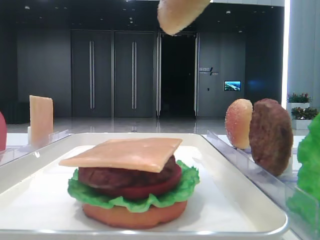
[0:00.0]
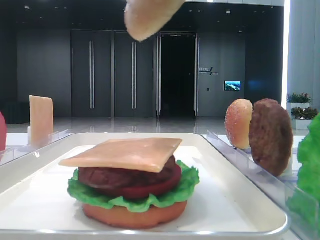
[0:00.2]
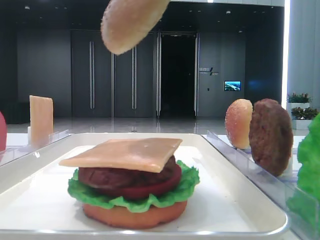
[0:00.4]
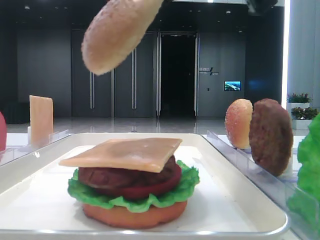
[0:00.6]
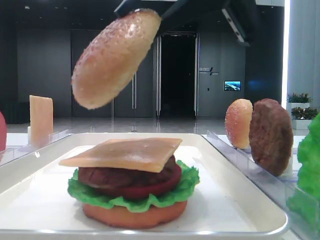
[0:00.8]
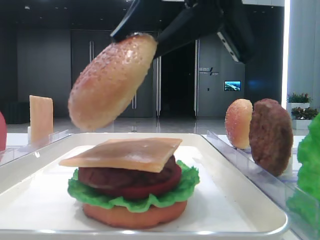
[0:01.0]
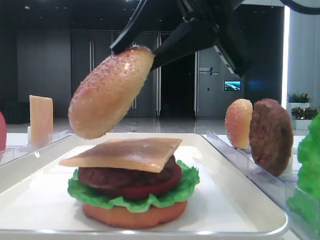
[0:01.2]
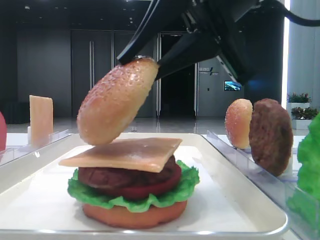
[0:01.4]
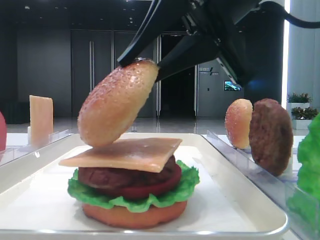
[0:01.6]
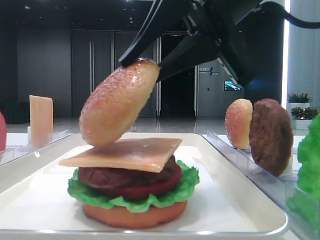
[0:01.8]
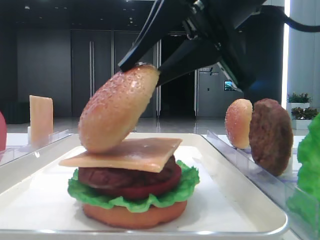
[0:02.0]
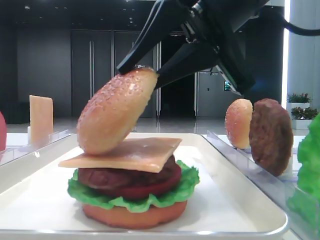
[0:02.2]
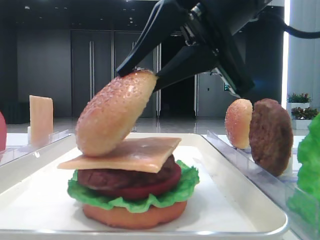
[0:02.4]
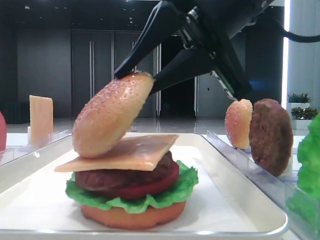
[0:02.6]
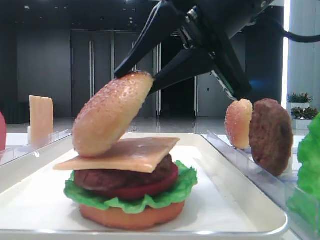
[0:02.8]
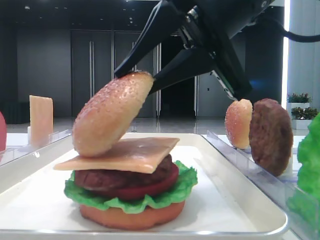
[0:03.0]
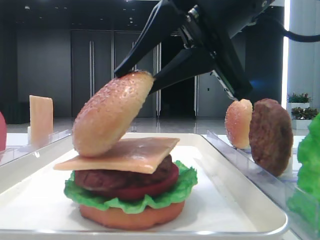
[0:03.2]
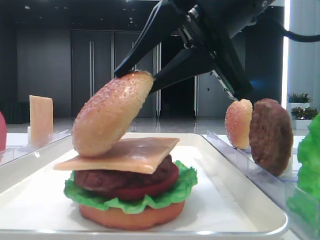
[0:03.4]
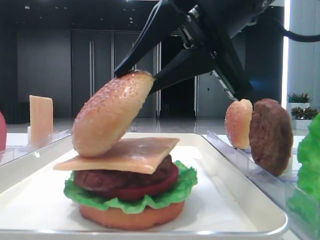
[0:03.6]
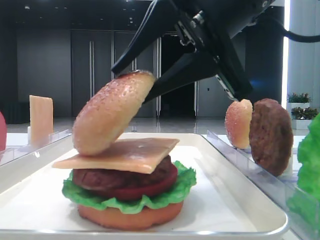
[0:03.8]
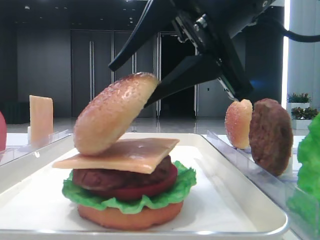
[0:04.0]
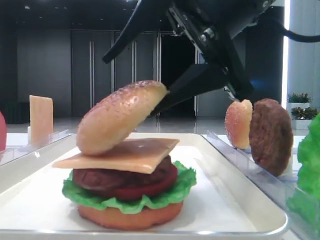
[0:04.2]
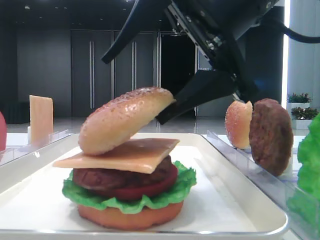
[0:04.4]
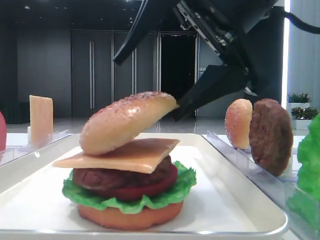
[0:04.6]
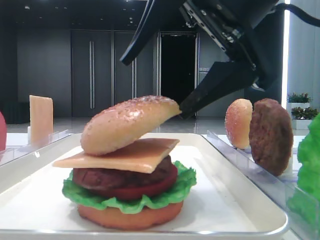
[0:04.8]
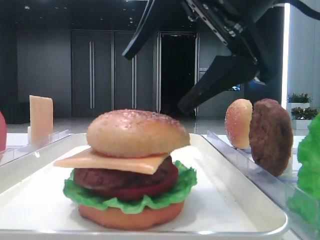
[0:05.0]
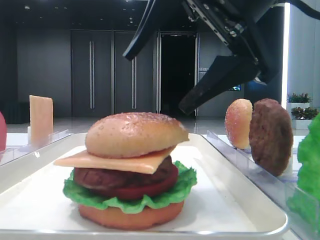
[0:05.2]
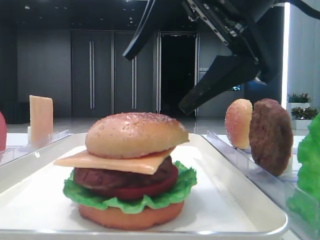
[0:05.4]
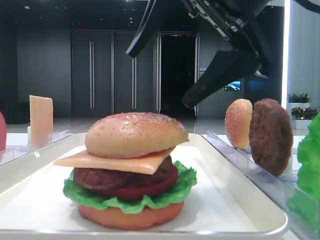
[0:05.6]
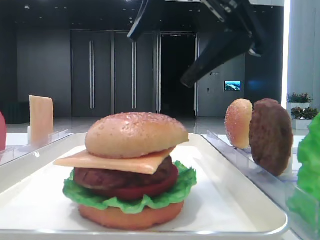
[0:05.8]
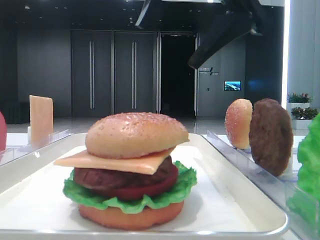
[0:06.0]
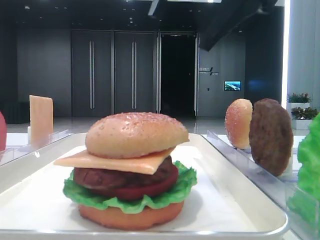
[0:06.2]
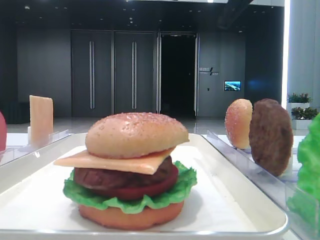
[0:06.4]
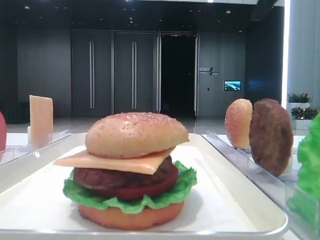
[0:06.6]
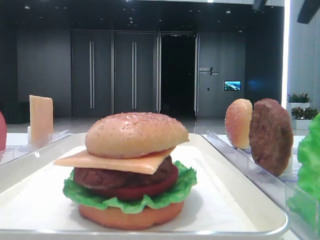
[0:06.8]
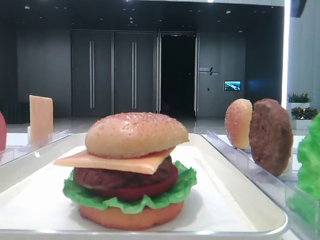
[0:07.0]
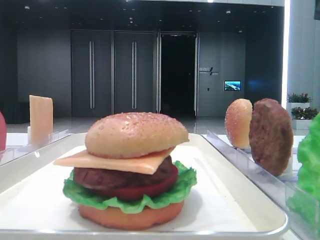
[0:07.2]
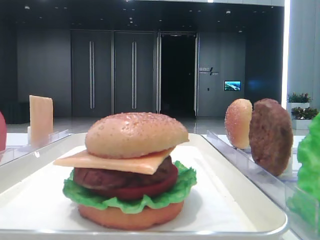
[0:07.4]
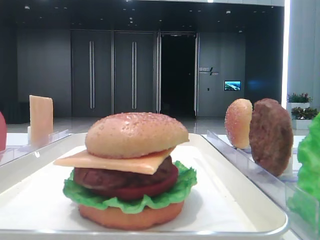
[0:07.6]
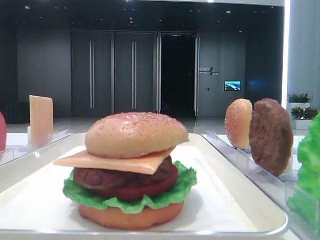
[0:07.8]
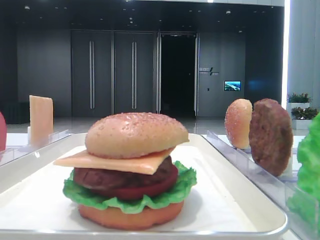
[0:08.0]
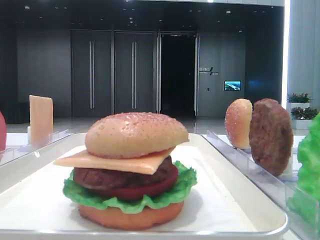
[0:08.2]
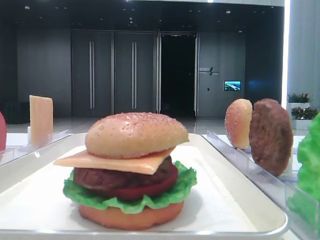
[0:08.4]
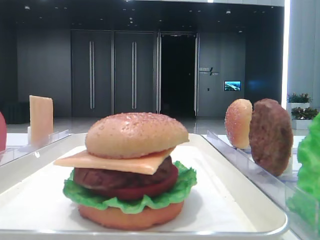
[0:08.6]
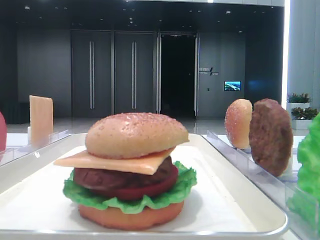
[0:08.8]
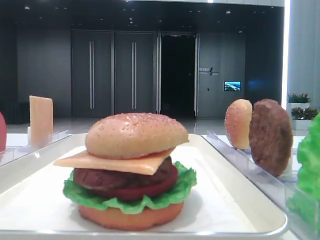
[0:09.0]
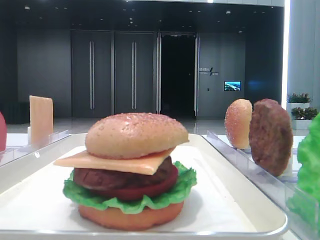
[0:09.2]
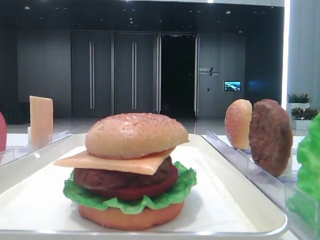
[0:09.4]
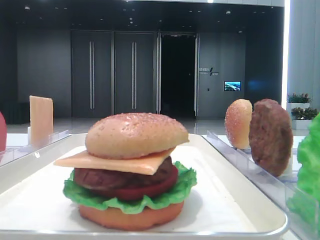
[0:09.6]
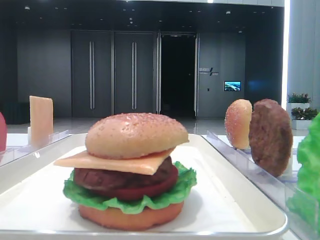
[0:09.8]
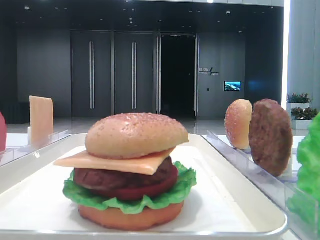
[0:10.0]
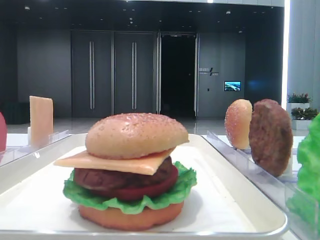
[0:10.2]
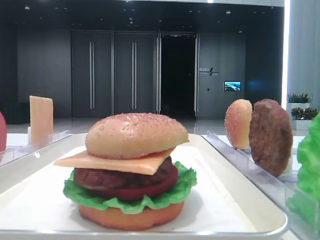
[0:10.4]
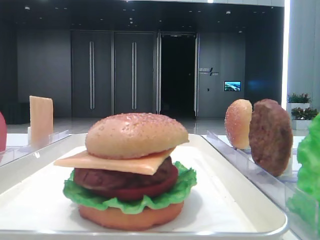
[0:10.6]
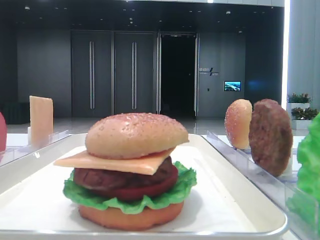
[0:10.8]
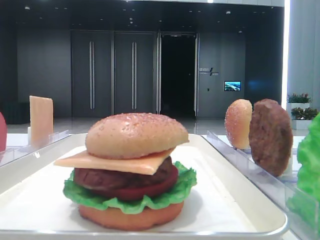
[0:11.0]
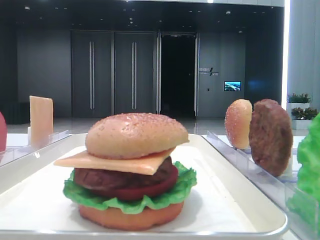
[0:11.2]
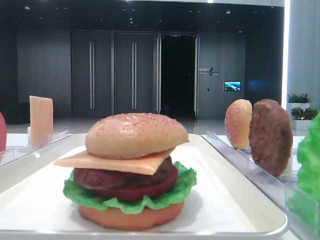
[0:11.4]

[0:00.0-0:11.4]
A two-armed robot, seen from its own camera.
Step, 0:00.0 to 0:04.8: Place the top bread slice on the cheese with the right hand.
0:00.0 to 0:01.4: The right gripper shifts approximately 10 cm downward and to the left.
0:01.4 to 0:02.8: The grippers stay close to where they were, moving slightly.
0:02.8 to 0:04.2: The right gripper opens up.
0:04.2 to 0:05.6: There are only small adjustments of the grippers.
0:05.6 to 0:07.2: The right gripper heads to the right, upward and forward, covering about 25 cm.

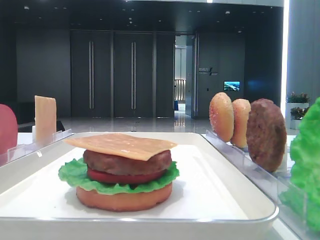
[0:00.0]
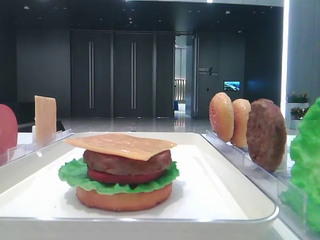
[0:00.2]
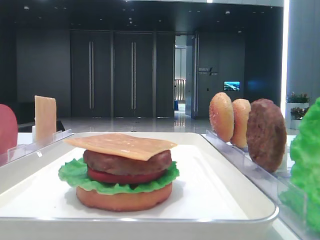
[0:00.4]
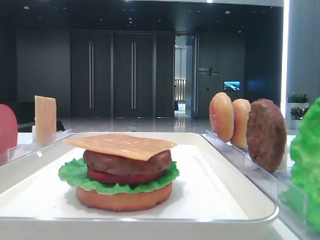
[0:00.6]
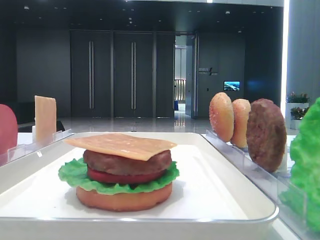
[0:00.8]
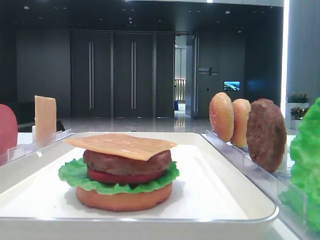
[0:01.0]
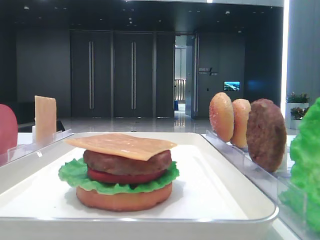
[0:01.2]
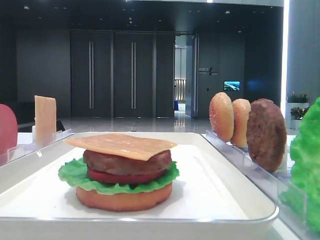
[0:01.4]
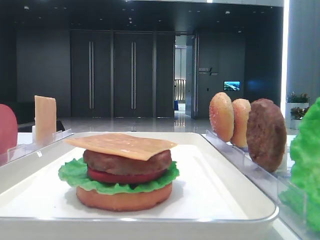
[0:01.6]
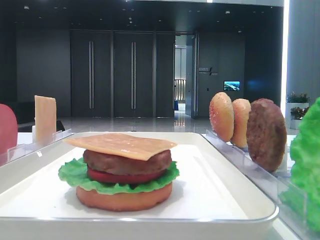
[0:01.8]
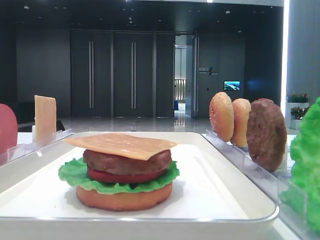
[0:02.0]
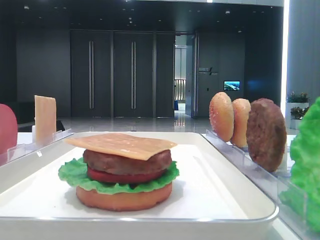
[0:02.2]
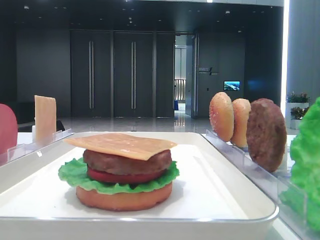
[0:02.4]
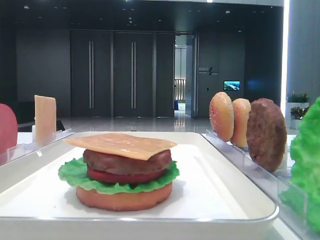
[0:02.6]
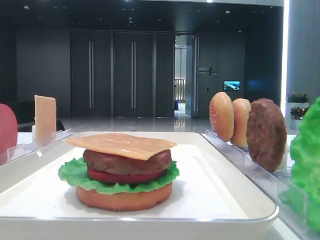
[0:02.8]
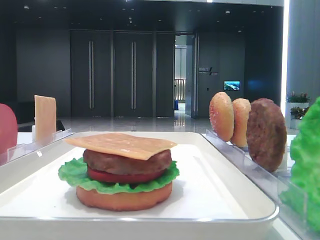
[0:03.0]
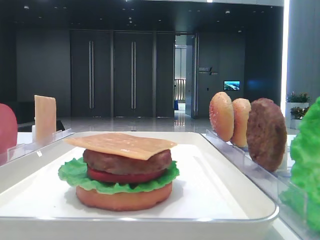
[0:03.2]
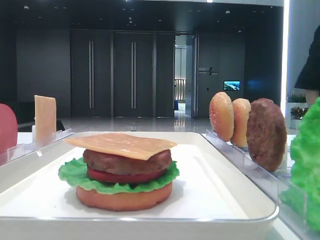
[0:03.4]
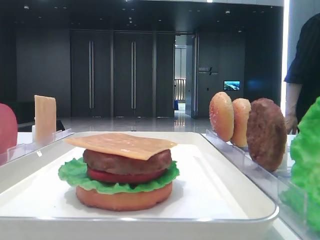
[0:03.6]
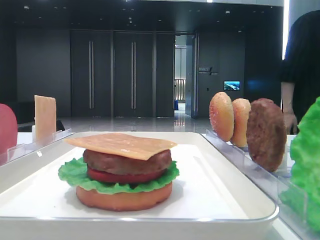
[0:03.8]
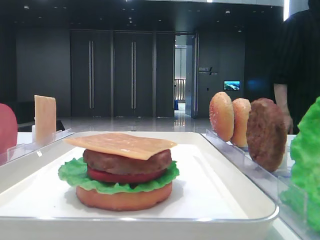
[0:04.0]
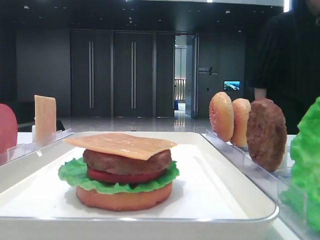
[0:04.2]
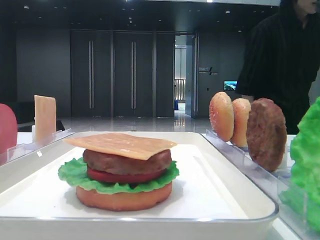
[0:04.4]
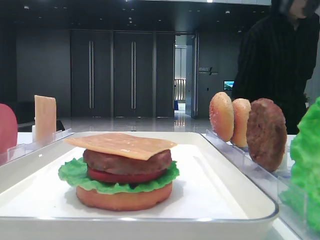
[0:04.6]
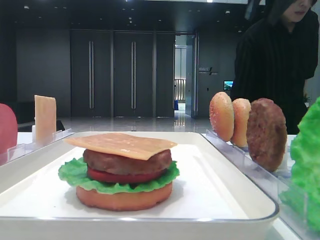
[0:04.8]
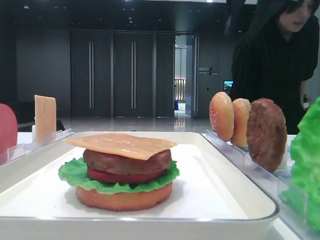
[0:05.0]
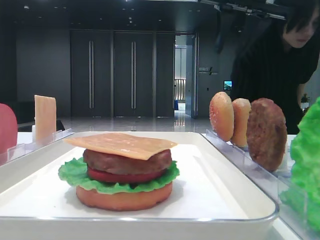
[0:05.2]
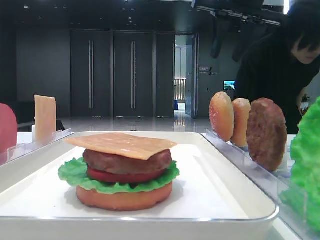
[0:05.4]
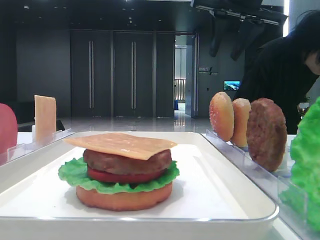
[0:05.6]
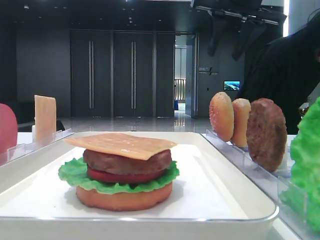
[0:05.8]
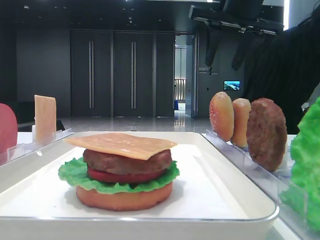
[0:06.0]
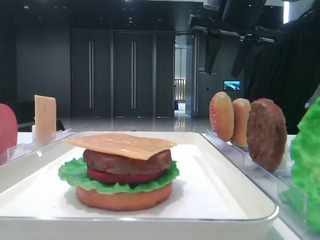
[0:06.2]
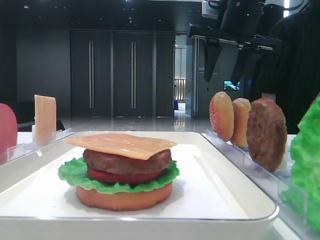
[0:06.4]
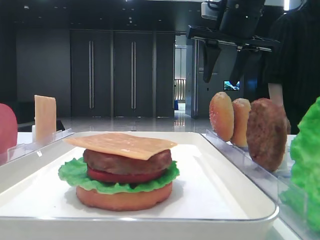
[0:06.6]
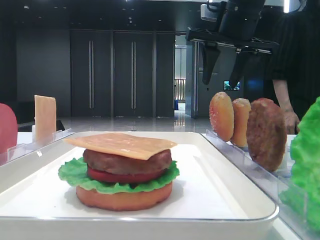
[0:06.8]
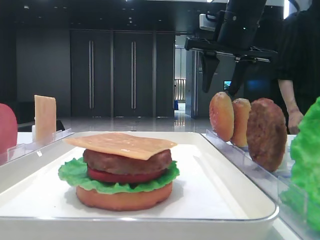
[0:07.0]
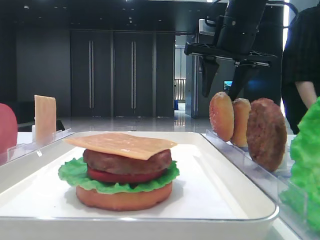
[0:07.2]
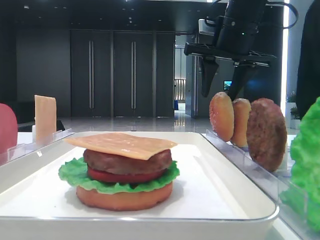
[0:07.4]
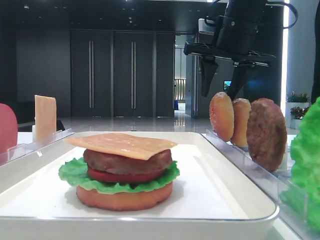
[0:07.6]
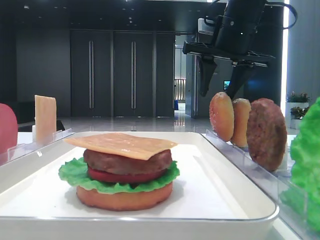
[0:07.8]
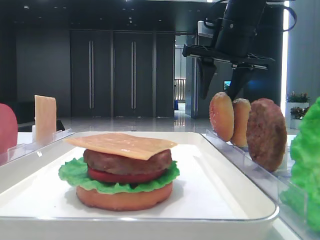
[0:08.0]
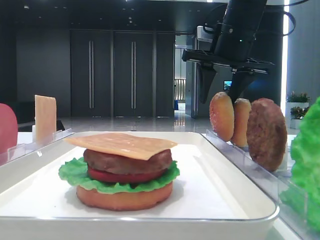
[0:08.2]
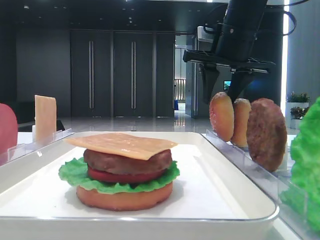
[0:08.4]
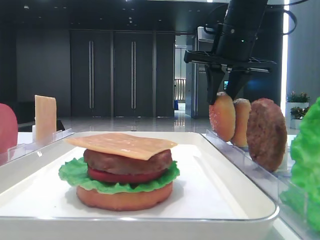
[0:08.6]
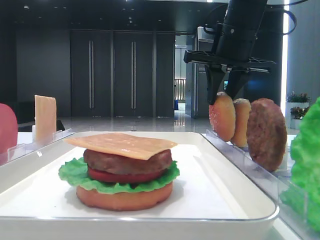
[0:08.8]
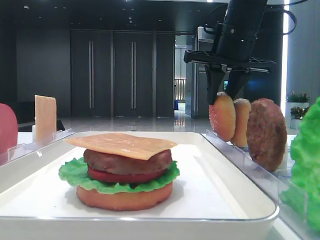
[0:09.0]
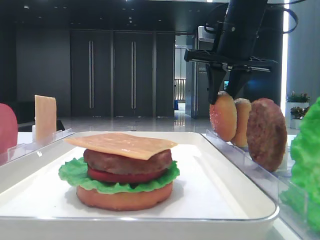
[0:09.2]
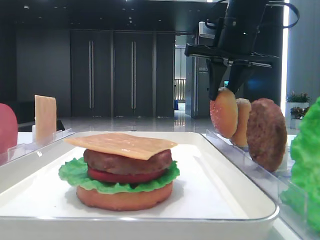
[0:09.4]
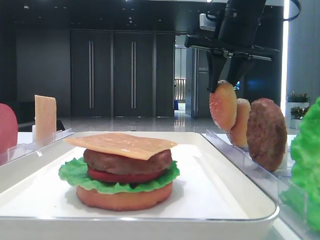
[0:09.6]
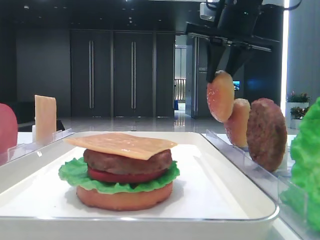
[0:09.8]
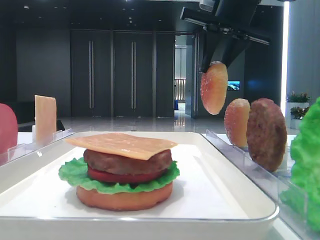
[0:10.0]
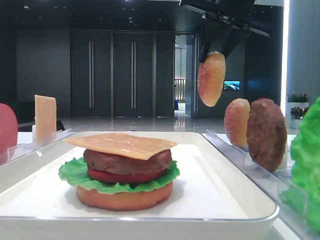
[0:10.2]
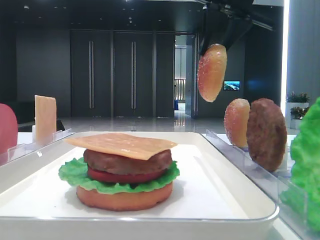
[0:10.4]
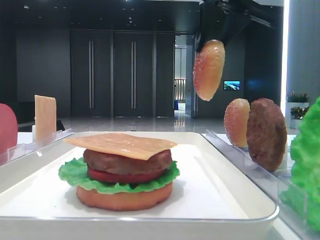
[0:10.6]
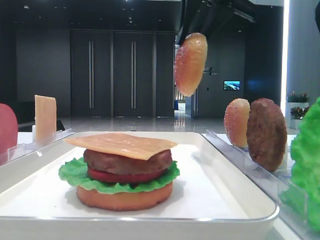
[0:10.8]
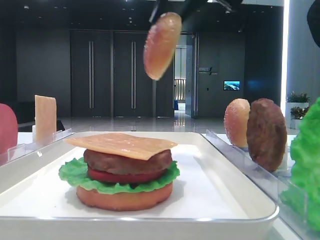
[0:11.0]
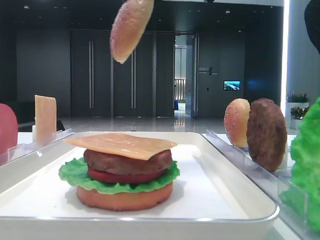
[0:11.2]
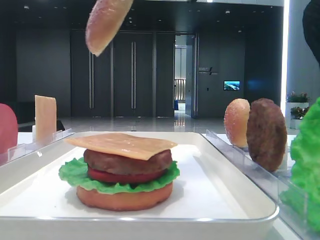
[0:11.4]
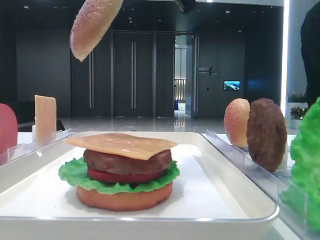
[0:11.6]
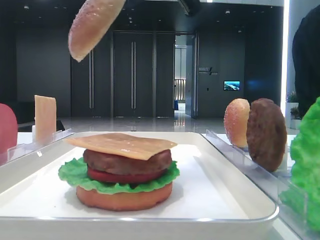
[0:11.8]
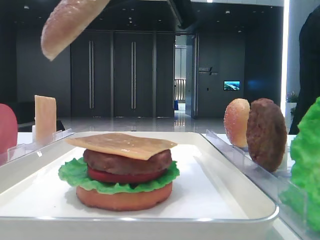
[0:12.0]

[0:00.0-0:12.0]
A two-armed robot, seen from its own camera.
Step, 0:00.0 to 0:08.6: Pick up the top bread slice with the right hand.
0:03.0 to 0:04.4: There are only small adjustments of the grippers.
0:04.4 to 0:06.0: The right gripper moves to the left and downward, some 15 cm.
0:06.0 to 0:07.6: The right gripper changes place by approximately 5 cm.
0:07.6 to 0:09.0: The right gripper closes up.
0:09.0 to 0:10.4: The right gripper moves upward, some 10 cm.
0:10.4 to 0:12.0: The right gripper is displaced backward and to the left by roughly 15 cm.
